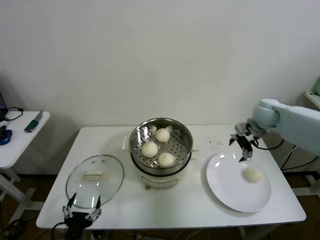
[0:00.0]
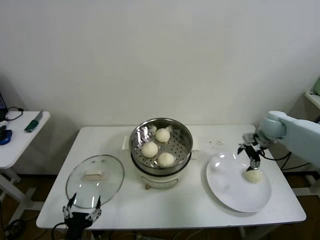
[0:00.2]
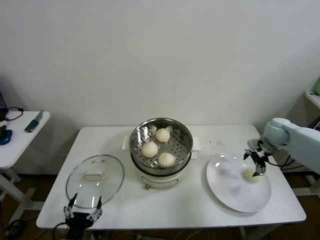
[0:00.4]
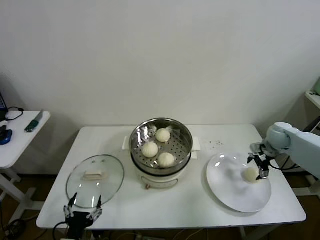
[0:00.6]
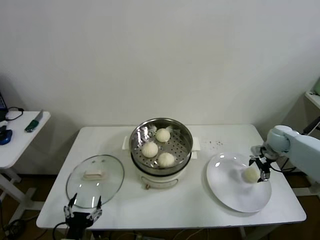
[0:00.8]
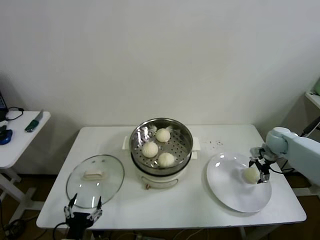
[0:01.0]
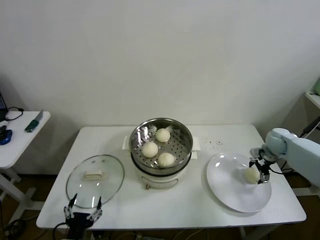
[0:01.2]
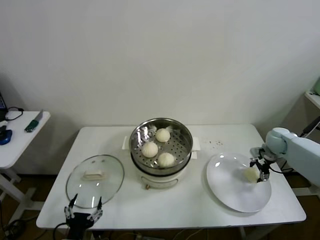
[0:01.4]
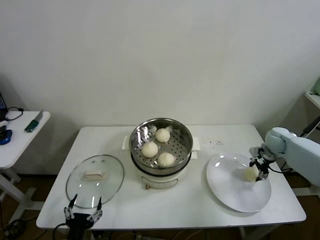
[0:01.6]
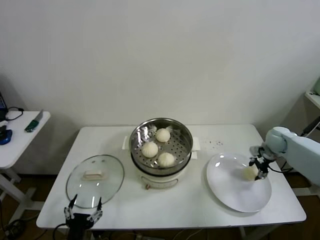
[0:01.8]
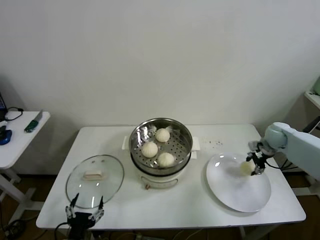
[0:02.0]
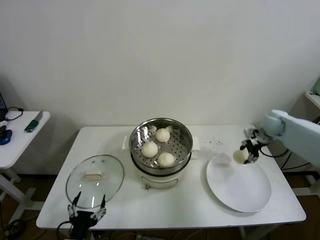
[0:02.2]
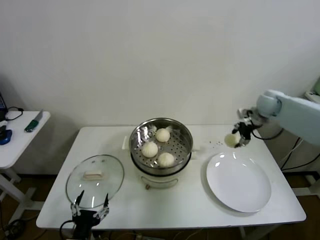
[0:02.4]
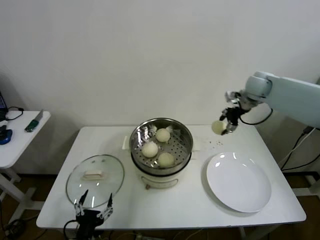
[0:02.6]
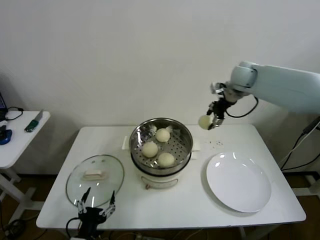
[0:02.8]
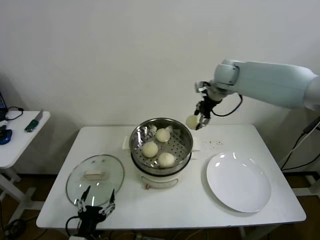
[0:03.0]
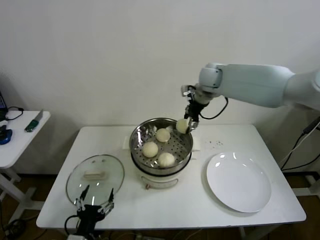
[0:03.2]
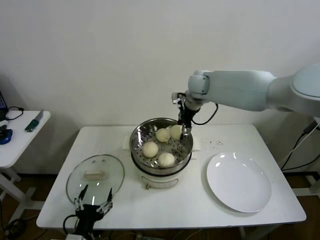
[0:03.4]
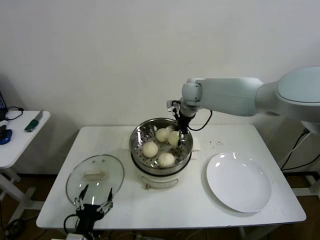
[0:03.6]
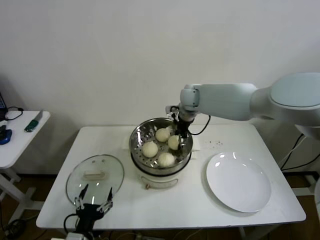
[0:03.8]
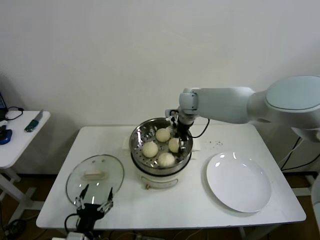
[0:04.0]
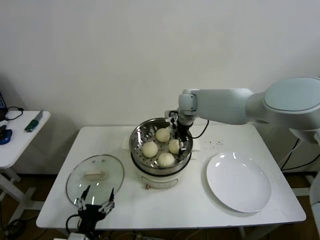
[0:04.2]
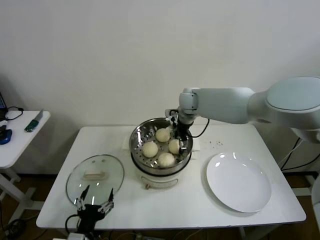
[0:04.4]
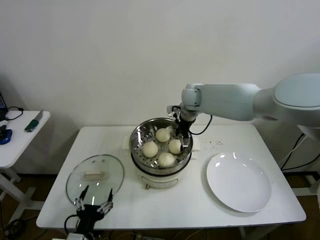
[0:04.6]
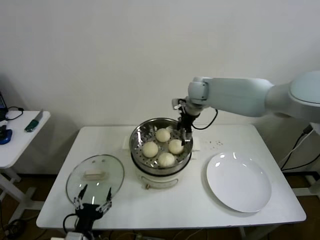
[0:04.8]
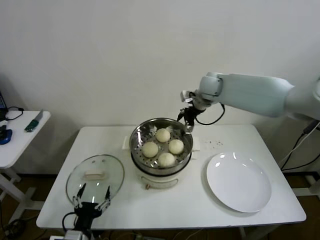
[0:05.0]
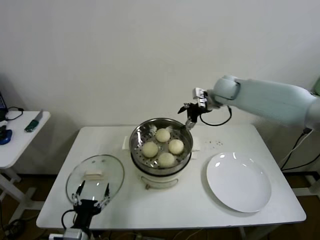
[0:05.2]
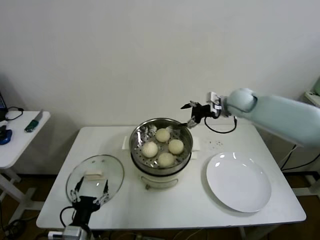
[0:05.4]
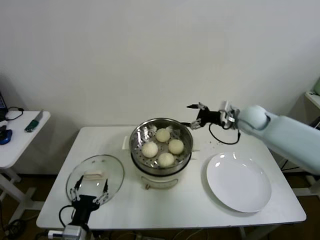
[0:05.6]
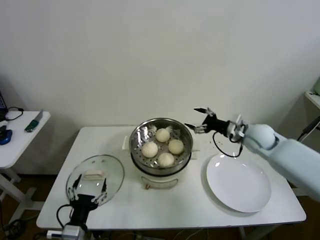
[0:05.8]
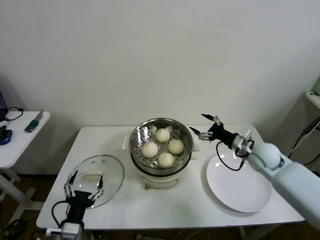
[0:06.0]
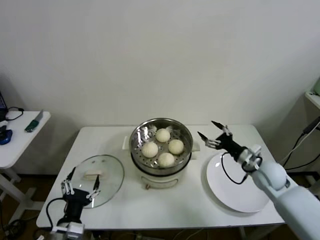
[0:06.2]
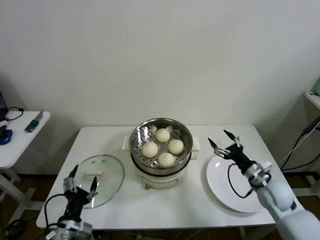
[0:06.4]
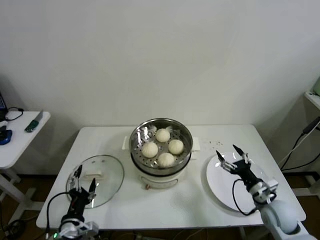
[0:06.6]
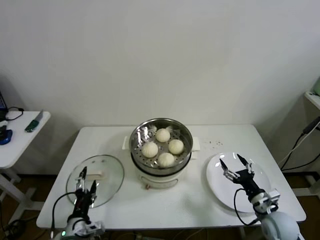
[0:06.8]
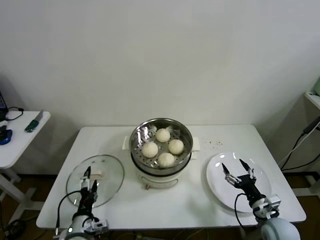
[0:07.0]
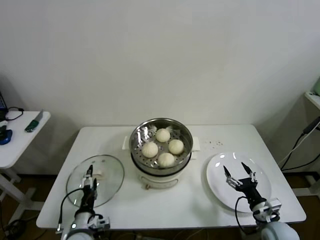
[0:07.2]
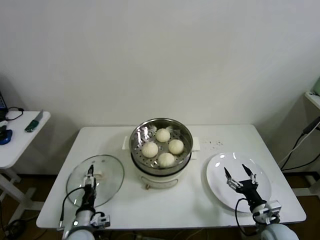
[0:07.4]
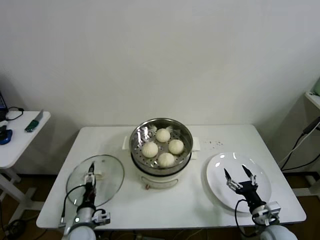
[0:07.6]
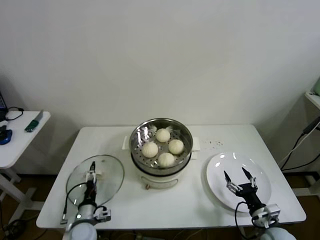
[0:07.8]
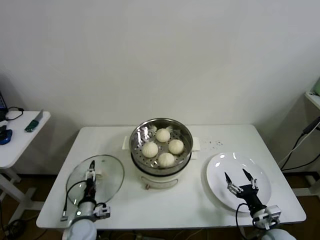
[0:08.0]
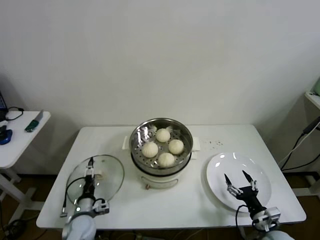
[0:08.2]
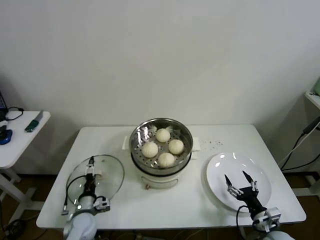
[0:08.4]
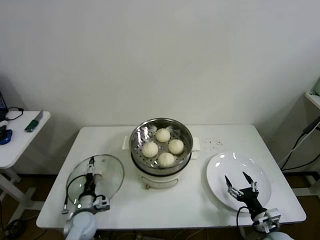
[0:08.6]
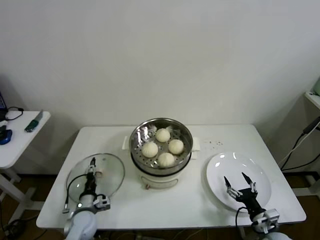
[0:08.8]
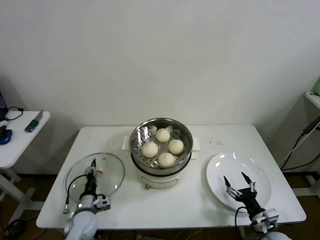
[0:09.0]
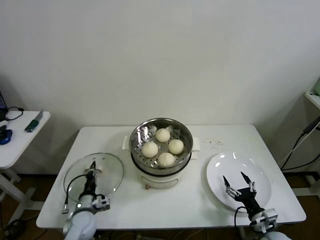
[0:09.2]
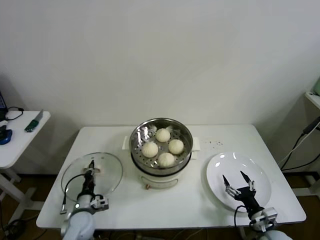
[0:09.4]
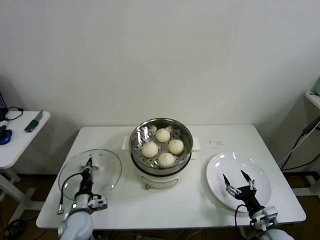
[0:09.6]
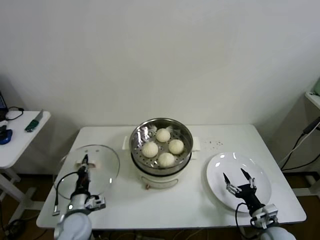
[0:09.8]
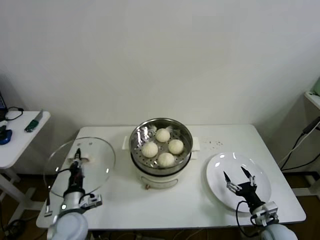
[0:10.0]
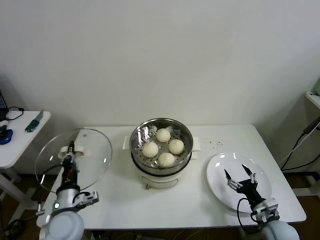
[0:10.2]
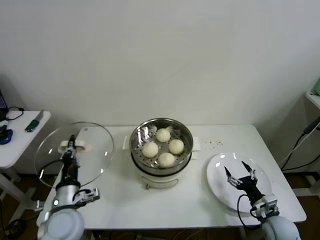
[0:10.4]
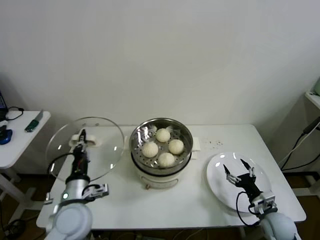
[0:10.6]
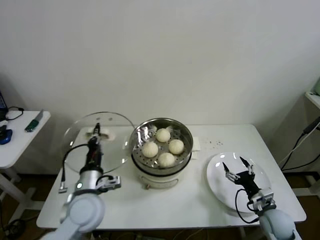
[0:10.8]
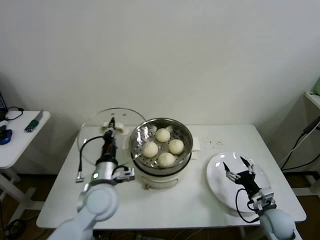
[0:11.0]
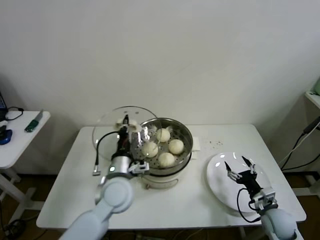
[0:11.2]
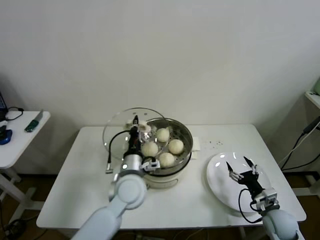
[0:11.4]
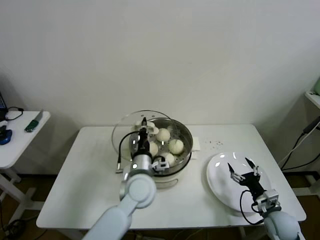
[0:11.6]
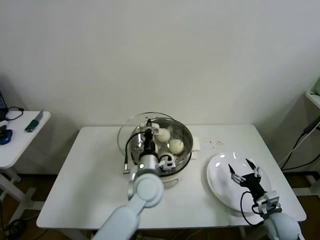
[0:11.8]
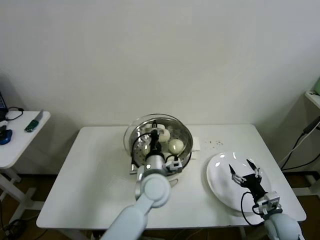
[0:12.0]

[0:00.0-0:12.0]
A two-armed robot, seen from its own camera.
Step, 0:00.0 to 0:01.6: Grasp the baozi in the plate with right gripper.
Step, 0:01.8 to 0:04.2: Place the baozi on the steamer with right gripper.
Step, 0:04.4 to 0:09.2: Grasp the pot lid with left gripper.
0:00.0 to 0:01.6: The right gripper is displaced downward and to the right by some 15 cm, and closes its fingers.
0:01.6 to 0:03.0: The right gripper shifts roughly 35 cm upward and to the left.
0:03.0 to 0:04.4: The right gripper is displaced to the left and downward by about 15 cm, and opens.
0:04.4 to 0:06.0: The right gripper travels to the right, backward and downward by some 30 cm.
0:06.0 to 0:07.6: The left gripper is displaced downward and forward by roughly 15 cm, while the right gripper is displaced backward and downward by some 25 cm.
0:07.6 to 0:09.0: The left gripper moves forward, approximately 5 cm, and closes its fingers.
0:09.0 to 0:10.4: The left gripper heads upward, covering about 15 cm, and closes up.
0:10.4 to 0:12.0: The left gripper travels to the right and forward by roughly 25 cm.

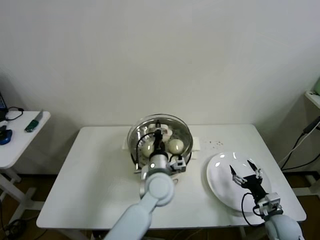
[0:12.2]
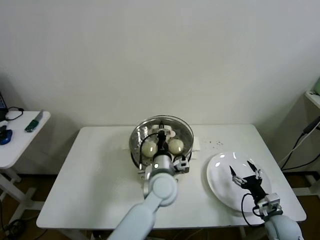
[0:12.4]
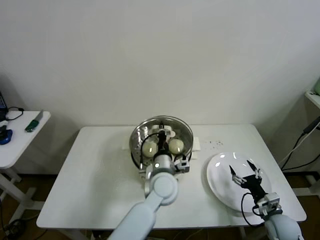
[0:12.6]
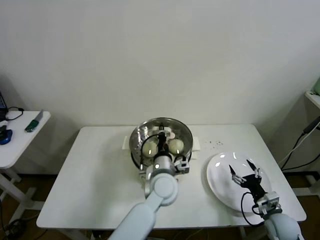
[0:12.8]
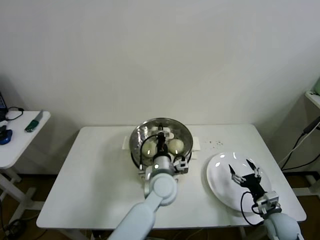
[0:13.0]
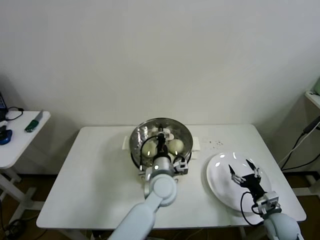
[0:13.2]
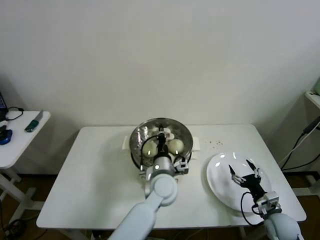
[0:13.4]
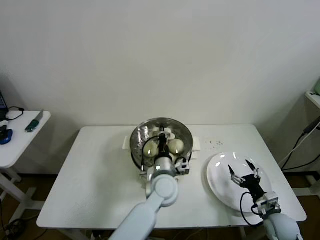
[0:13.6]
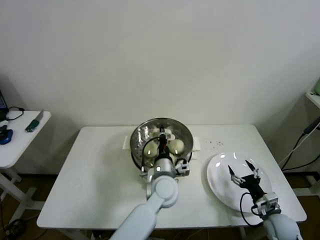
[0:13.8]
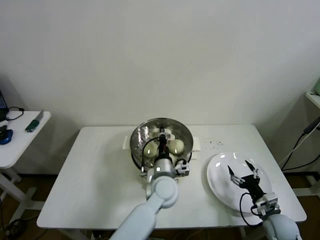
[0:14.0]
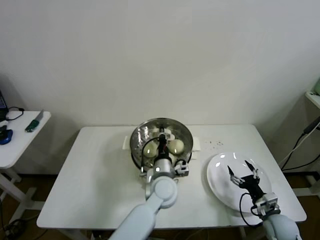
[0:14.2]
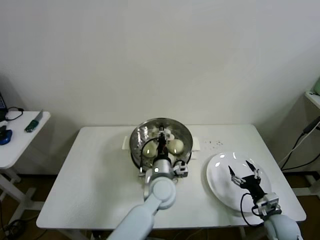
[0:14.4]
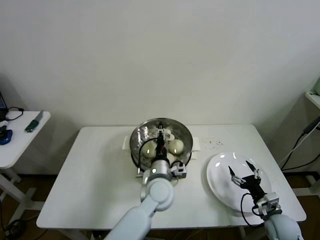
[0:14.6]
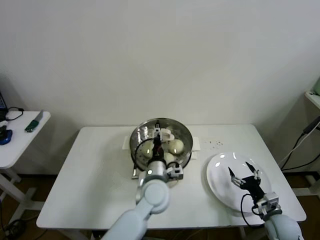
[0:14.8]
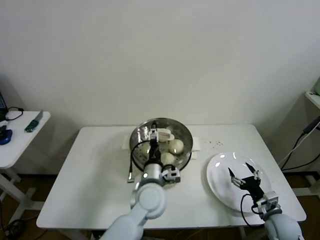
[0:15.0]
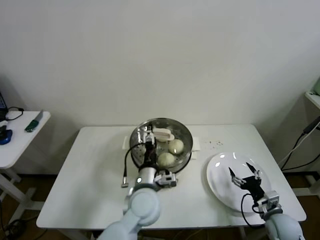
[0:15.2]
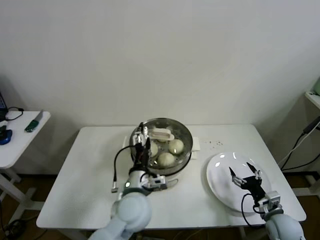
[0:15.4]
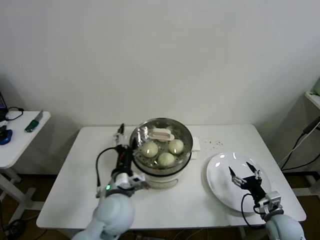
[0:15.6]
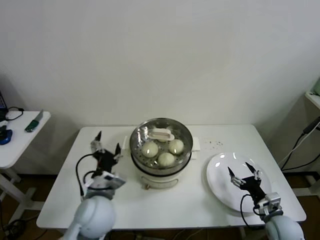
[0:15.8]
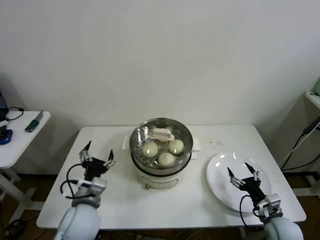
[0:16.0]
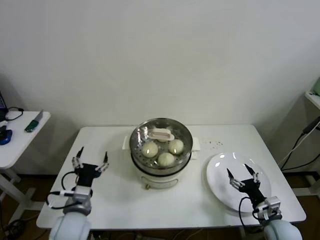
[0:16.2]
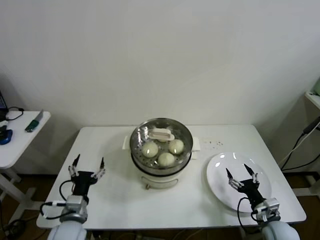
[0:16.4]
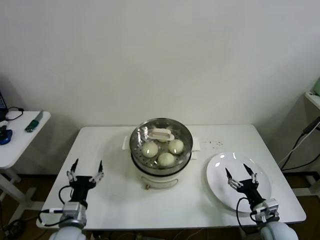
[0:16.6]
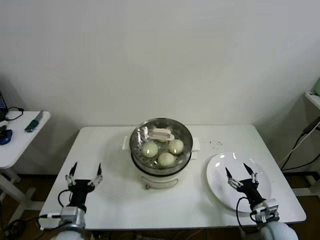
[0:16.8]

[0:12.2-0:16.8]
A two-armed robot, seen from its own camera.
Step, 0:12.2 to 0:14.6: Place the pot lid on the steamer with left gripper.
0:12.2 to 0:13.8: The grippers stay close to where they were, moving slightly.
0:13.8 to 0:15.2: The left gripper travels to the left by some 5 cm, and opens.
0:15.2 to 0:16.8: The left gripper travels to the left and backward by some 25 cm.
